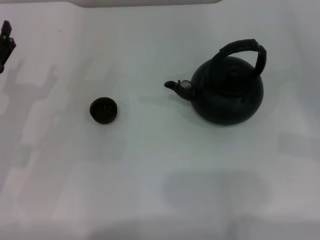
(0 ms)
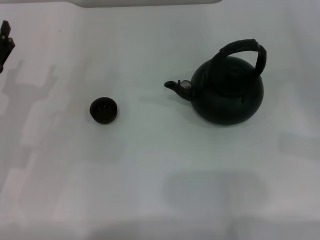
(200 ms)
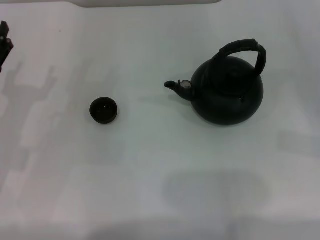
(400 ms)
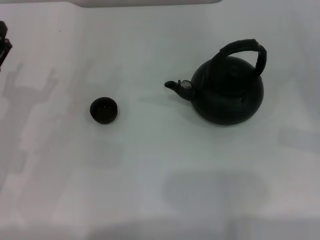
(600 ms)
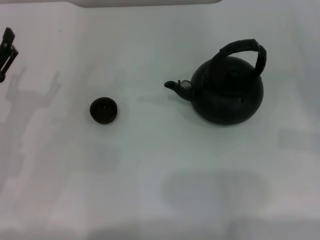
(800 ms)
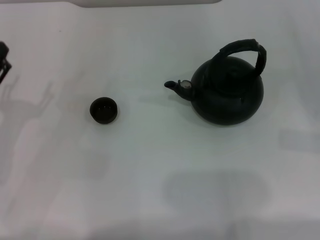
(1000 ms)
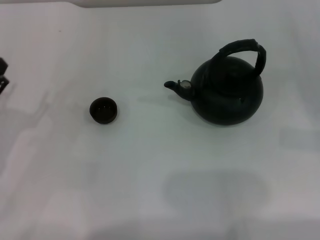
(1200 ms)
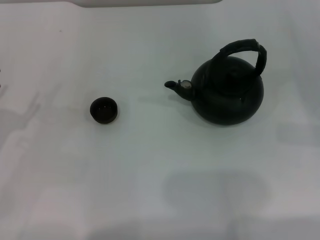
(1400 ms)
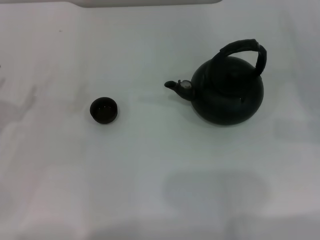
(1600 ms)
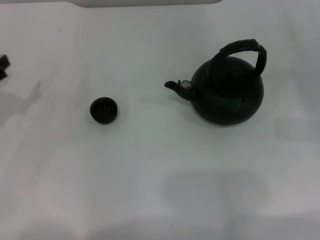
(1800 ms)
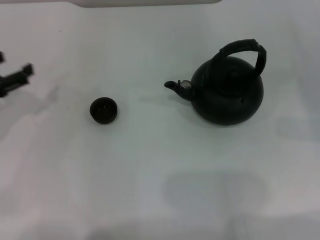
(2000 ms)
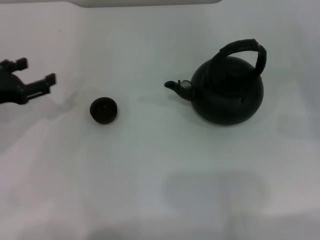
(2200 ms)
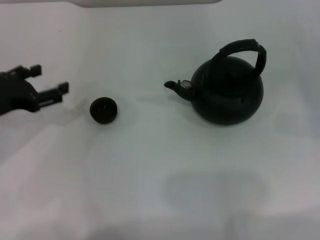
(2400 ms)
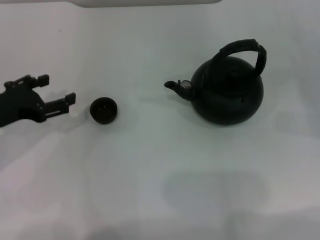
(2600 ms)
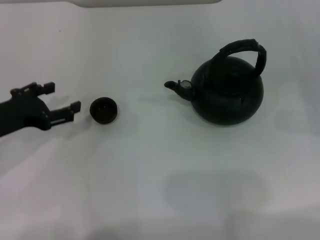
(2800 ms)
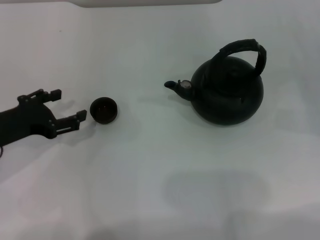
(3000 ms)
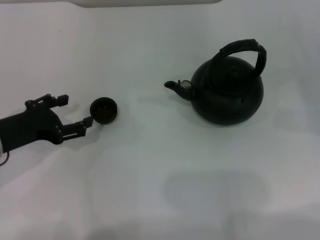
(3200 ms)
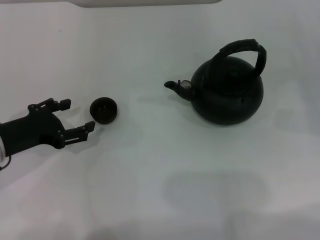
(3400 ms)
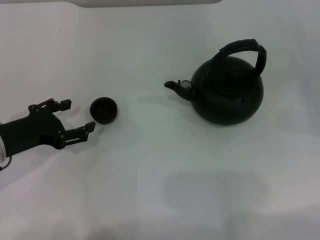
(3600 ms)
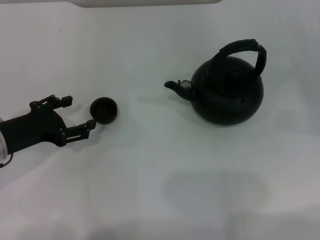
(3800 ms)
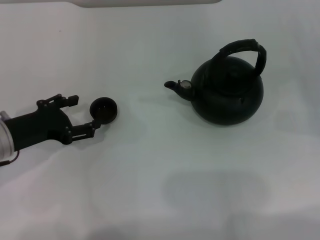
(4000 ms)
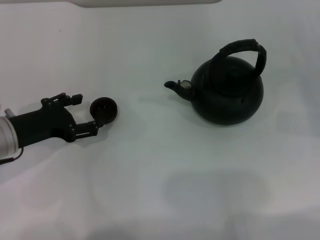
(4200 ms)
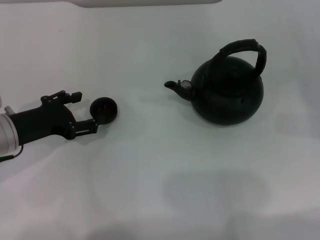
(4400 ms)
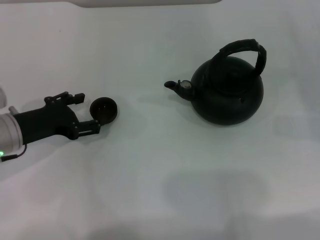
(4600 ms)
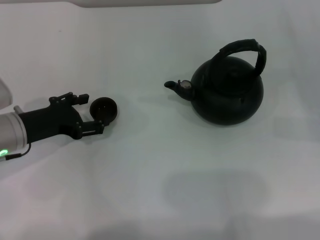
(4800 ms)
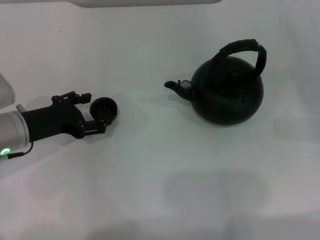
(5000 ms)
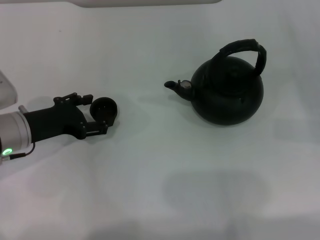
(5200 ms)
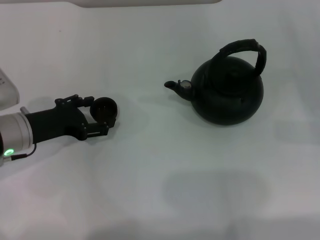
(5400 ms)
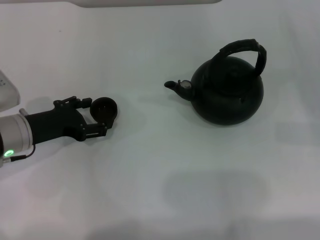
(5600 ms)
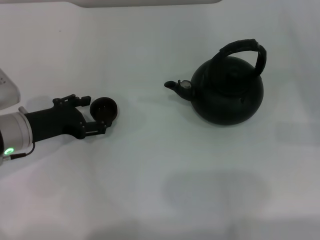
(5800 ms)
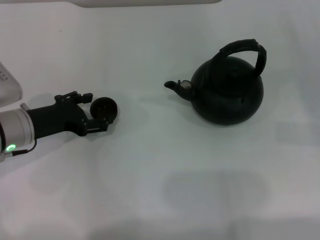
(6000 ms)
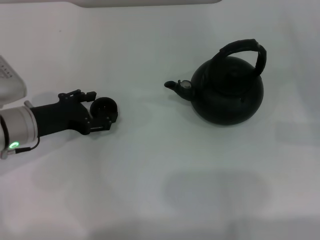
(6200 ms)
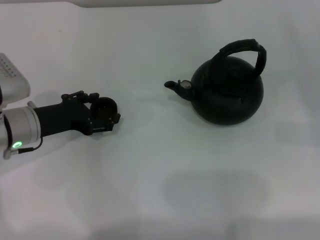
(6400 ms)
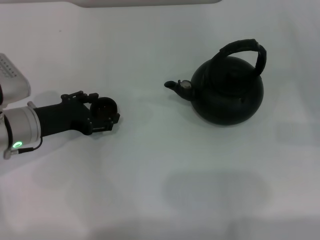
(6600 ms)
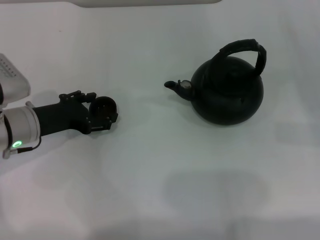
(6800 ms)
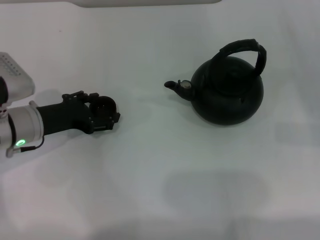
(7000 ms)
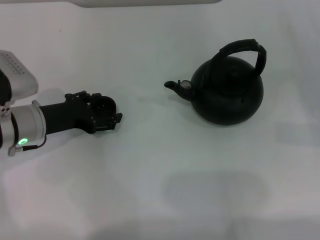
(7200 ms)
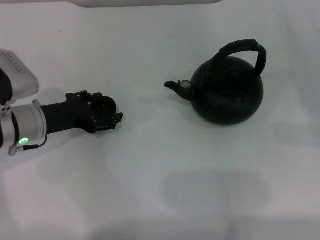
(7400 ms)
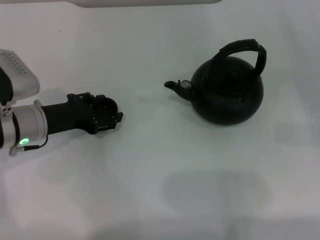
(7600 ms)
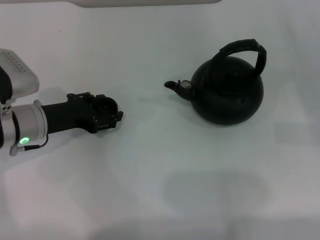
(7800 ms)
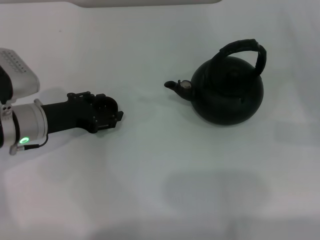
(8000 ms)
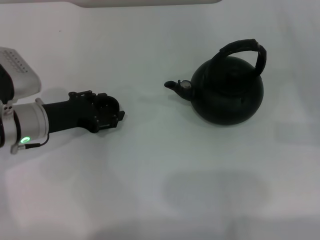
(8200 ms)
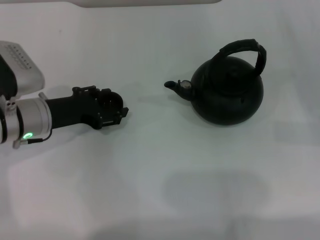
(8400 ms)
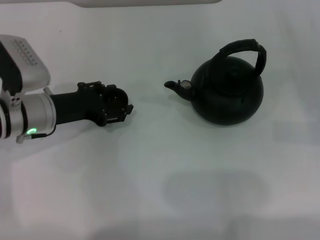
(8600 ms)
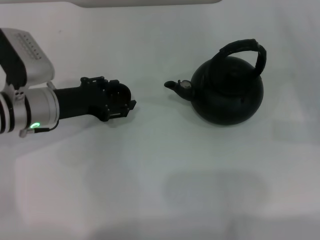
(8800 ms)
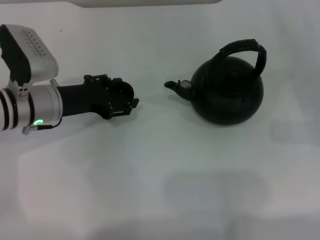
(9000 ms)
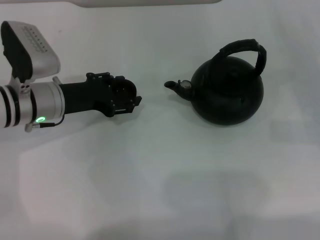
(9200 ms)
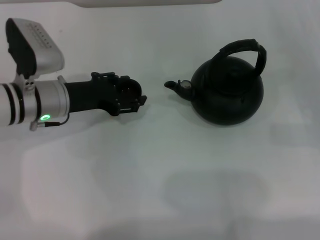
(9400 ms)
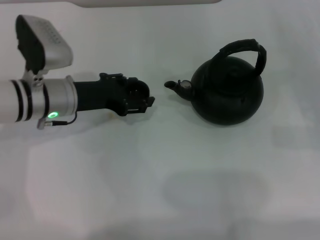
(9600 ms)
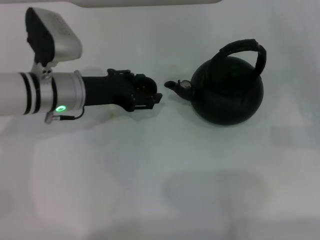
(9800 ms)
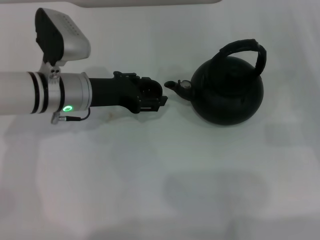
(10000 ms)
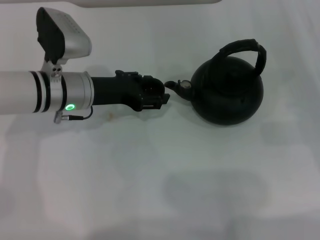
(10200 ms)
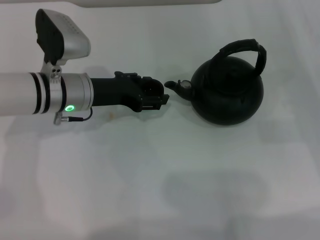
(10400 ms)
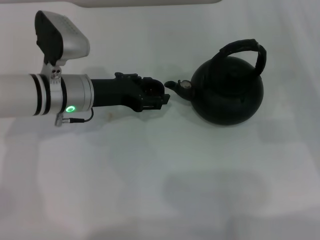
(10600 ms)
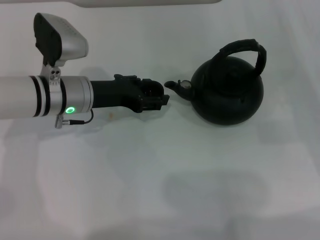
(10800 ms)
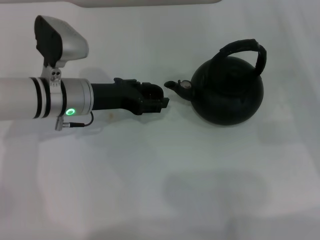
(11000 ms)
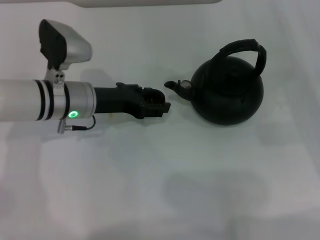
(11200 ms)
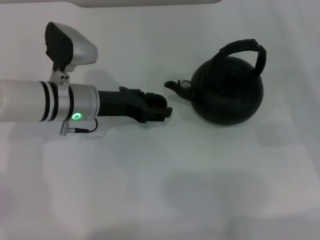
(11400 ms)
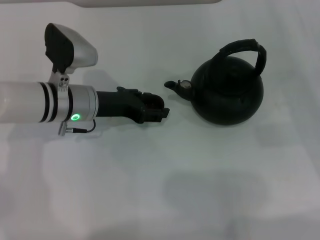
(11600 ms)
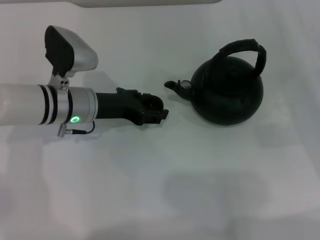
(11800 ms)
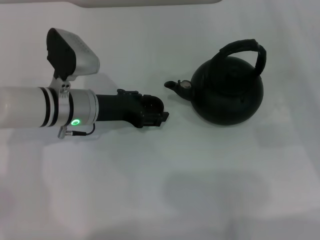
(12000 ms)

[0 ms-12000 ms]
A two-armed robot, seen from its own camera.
Task of the whole recording: Grasp the handle of the teapot with one hand and pour tea into the teacup.
Step, 0 ms to 9000 ms: Pick up the teacup with the left gripper.
0 ms to 1600 ms: The left gripper travels to the left by approximately 5 cm.
1600 ms to 3000 ms: The left gripper heads to the right, covering approximately 5 cm.
3000 ms to 6000 ms: The grippers move only a little.
6000 ms to 7600 ms: The grippers move only a little.
7600 ms to 9000 ms: The left gripper closes.
9000 ms to 12000 ms: The grippers move only a little.

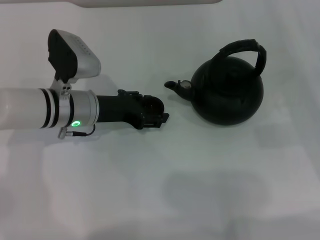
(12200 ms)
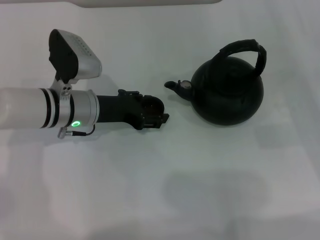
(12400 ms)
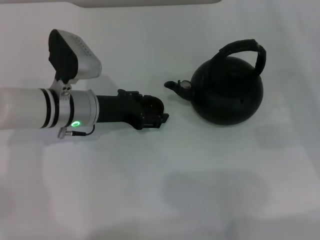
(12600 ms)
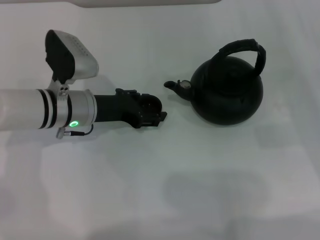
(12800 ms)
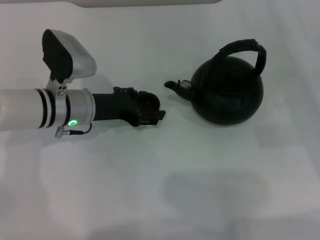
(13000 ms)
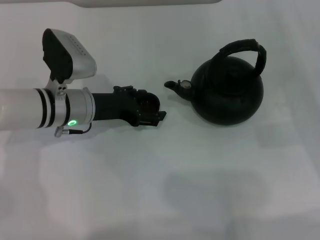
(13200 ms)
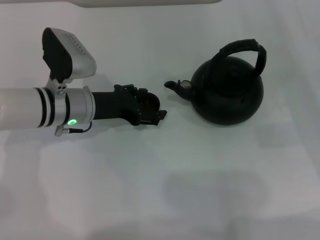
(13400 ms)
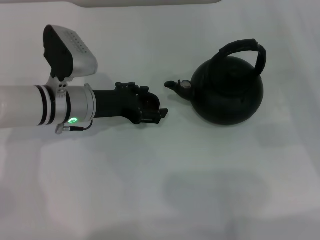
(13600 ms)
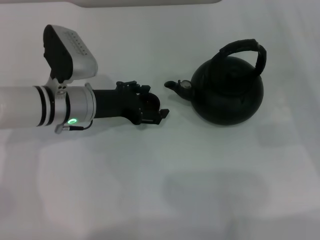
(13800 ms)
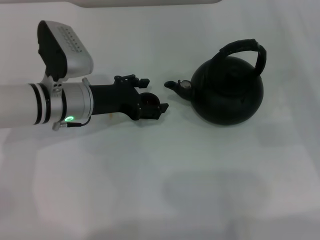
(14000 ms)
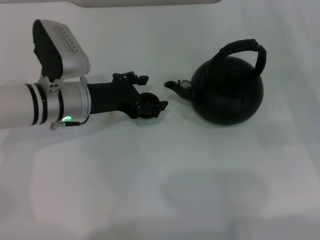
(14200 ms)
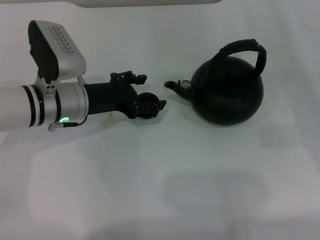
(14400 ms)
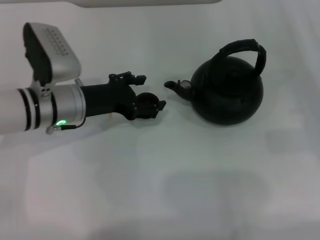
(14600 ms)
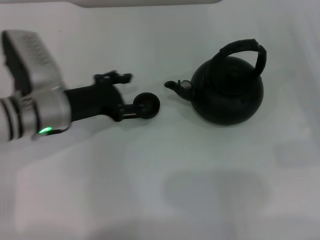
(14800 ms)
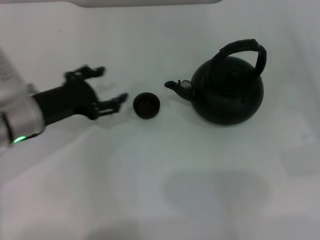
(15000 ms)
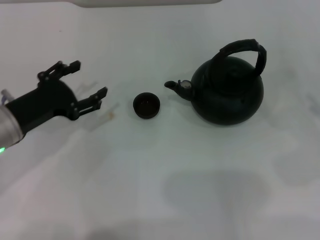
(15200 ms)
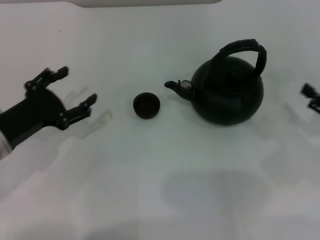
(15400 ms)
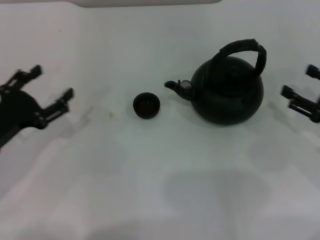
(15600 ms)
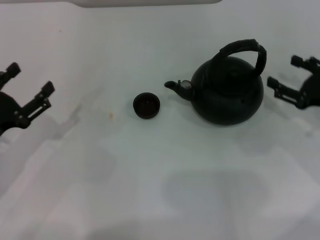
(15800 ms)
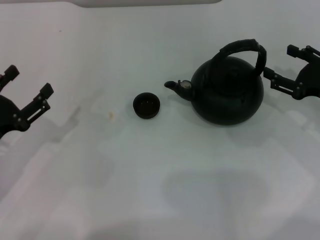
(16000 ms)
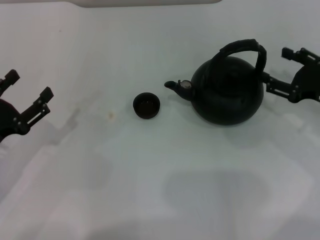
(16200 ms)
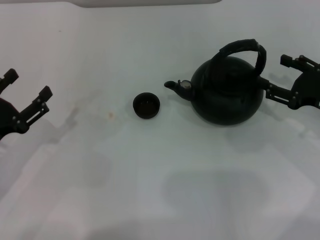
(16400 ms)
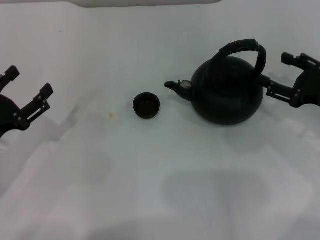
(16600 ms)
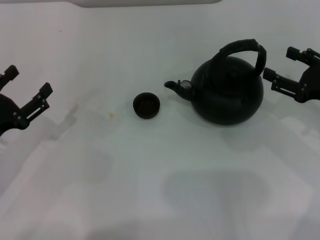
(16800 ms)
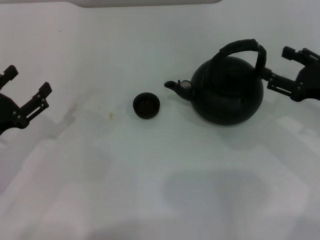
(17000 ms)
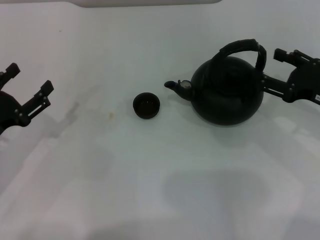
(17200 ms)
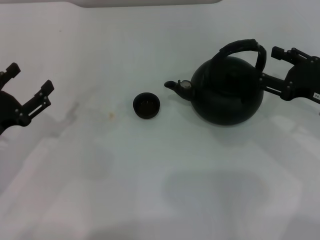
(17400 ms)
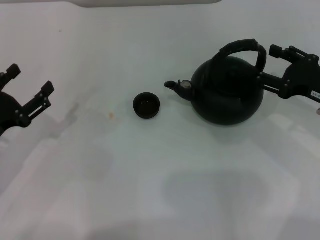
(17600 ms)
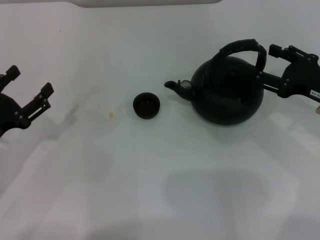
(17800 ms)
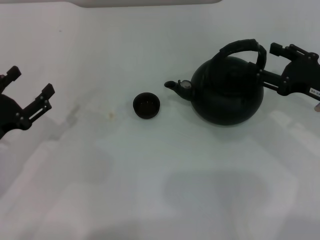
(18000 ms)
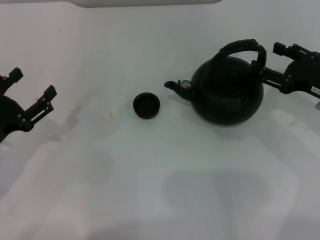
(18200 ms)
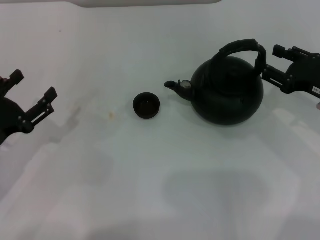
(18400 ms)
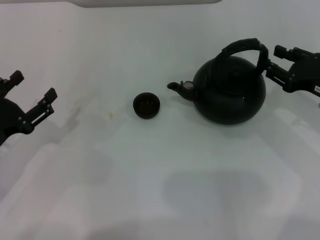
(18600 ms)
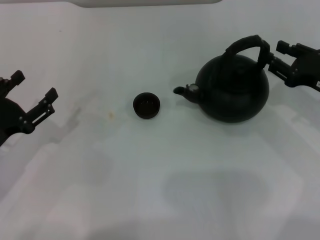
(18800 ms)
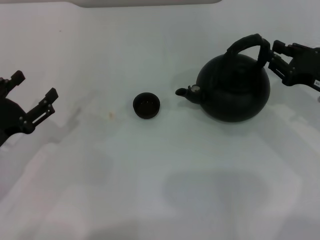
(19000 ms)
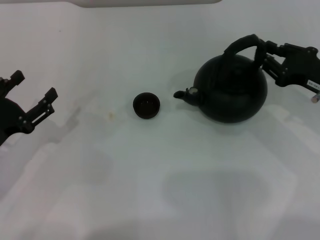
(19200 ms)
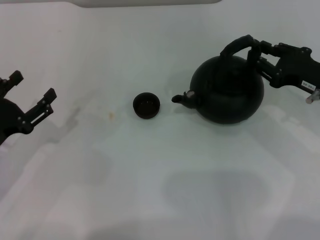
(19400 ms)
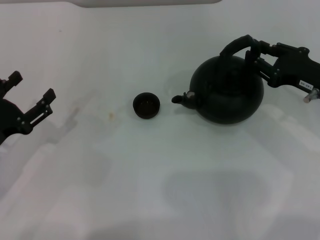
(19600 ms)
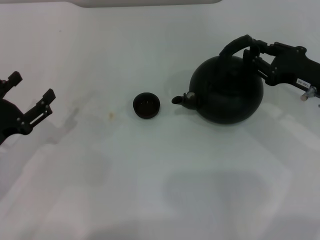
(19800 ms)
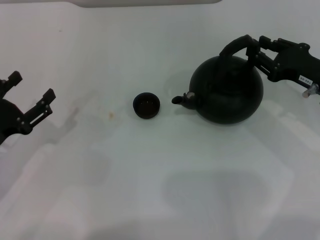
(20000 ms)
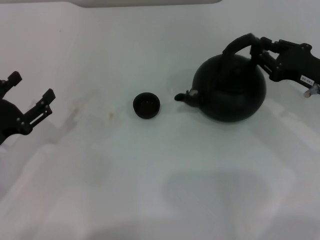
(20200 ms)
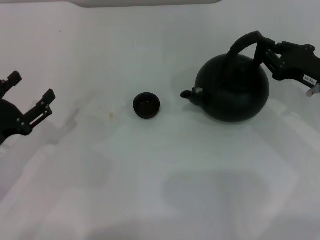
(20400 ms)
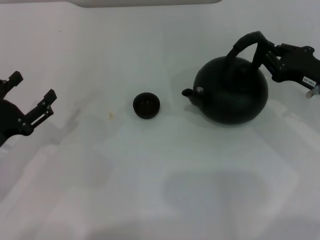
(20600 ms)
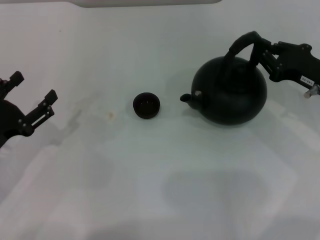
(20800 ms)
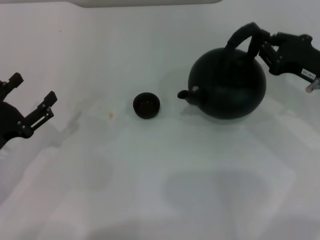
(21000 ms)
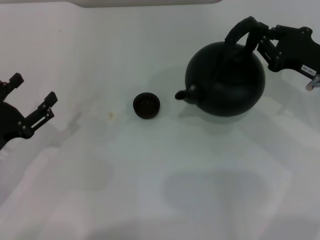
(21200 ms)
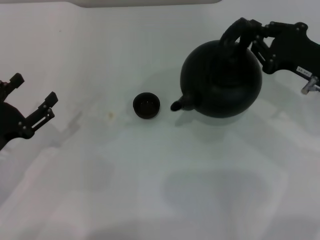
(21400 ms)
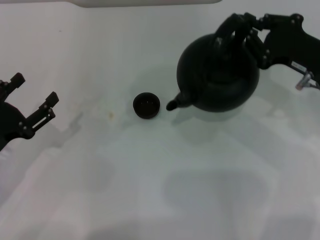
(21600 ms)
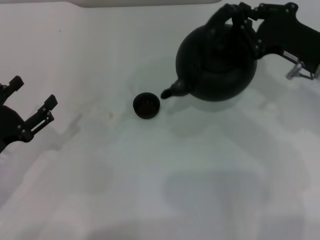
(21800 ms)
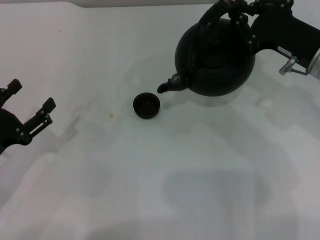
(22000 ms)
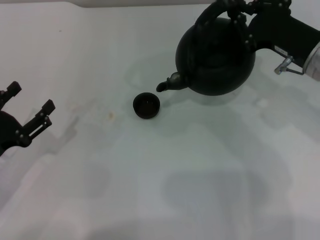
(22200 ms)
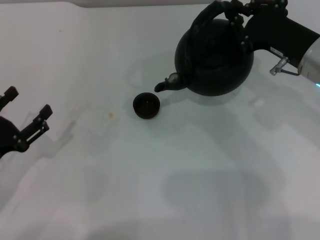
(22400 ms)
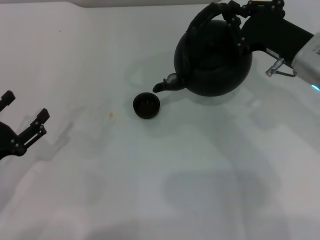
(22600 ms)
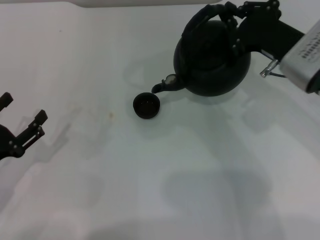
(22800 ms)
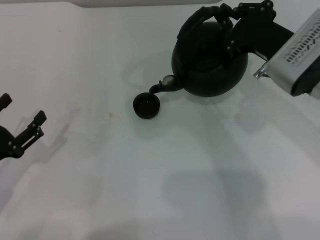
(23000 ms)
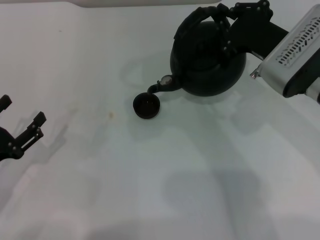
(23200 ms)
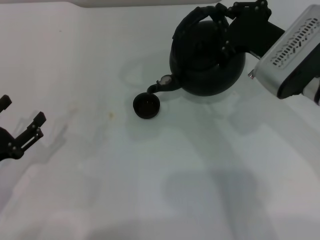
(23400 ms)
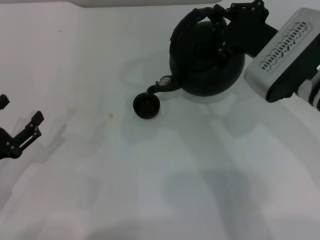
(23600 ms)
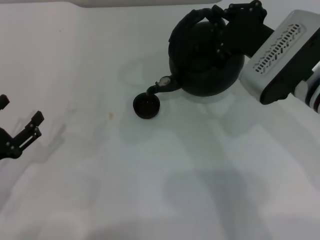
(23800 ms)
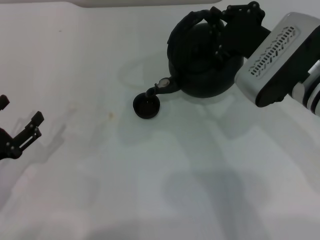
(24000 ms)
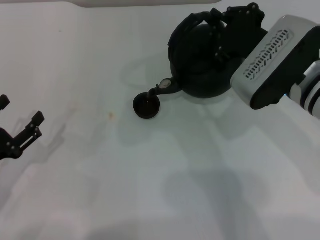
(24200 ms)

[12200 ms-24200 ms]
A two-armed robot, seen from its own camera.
Task of the whole recording: Grasp the handle of the teapot with one hand and pour tea into the teacup.
Step, 12200 ms to 14200 ms: Place the teacup in the center of view with the left gripper.
Step, 14400 ms to 21400 ms: Pick up the teapot with the right gripper.
12200 ms to 13800 ms: The left gripper opens its fingers.
13800 ms to 15200 ms: The left gripper is displaced to the left and backward by roughly 10 cm; the right gripper goes some 5 cm backward.
15200 ms to 16600 ms: The left gripper is displaced backward and to the left by approximately 10 cm; the right gripper shifts roughly 10 cm to the left and forward.
16600 ms to 18200 ms: The grippers stay close to where they were, moving slightly.
18200 ms to 19800 ms: The right gripper closes its fingers.
19800 ms to 21200 ms: The right gripper closes up.
21200 ms to 22600 ms: The right gripper heads to the left, covering roughly 5 cm.
22600 ms to 24200 ms: The grippers make only small movements.
